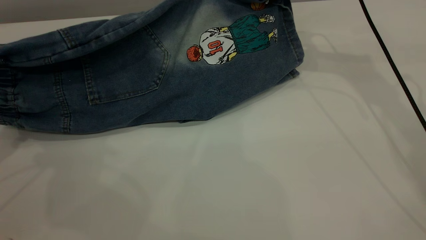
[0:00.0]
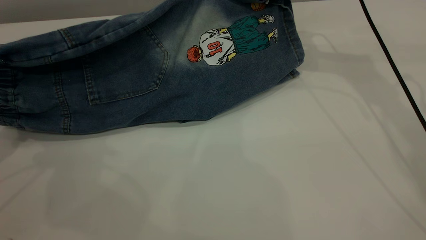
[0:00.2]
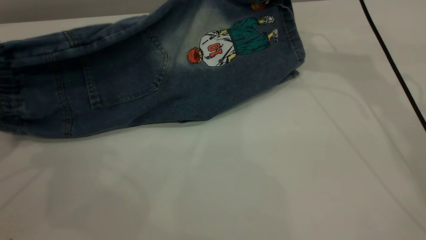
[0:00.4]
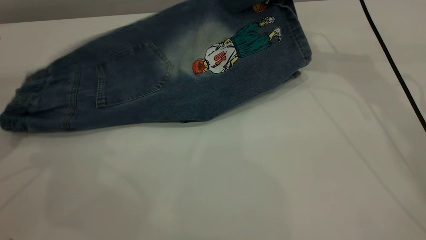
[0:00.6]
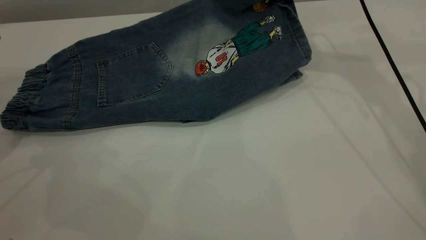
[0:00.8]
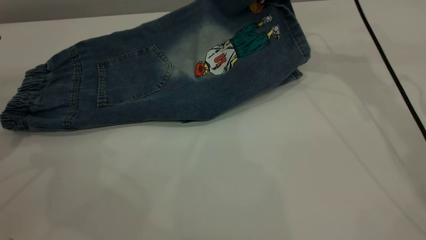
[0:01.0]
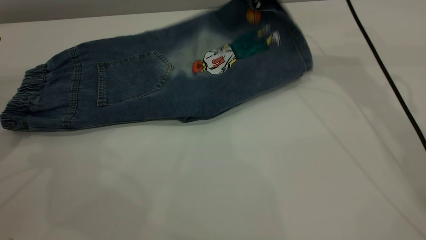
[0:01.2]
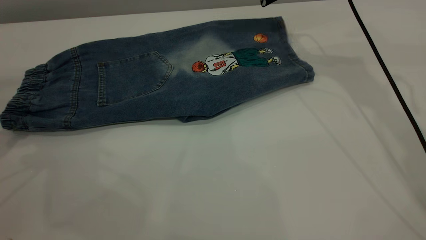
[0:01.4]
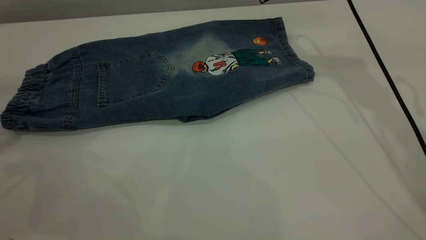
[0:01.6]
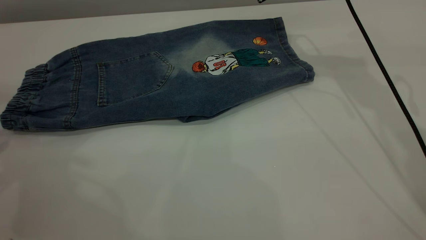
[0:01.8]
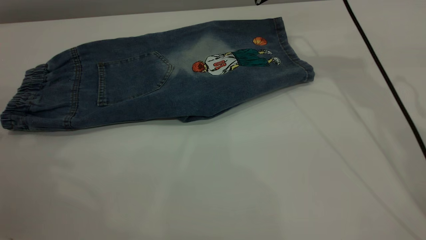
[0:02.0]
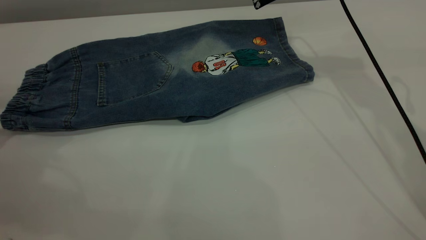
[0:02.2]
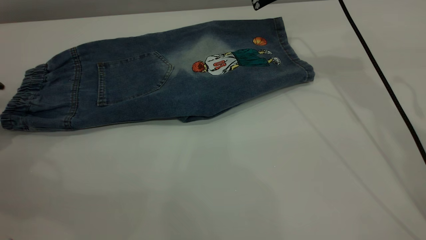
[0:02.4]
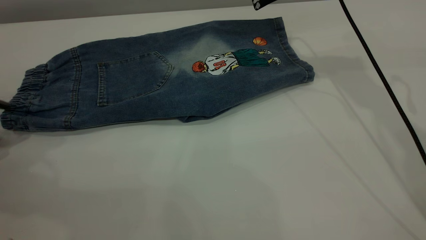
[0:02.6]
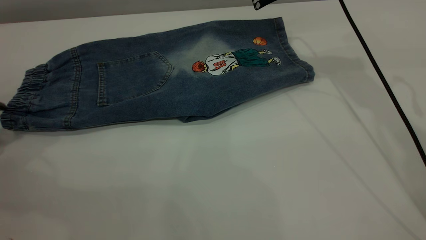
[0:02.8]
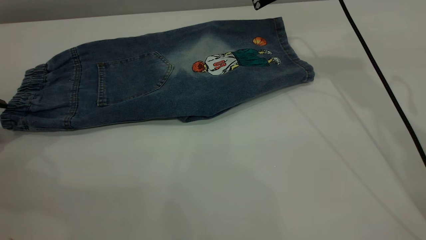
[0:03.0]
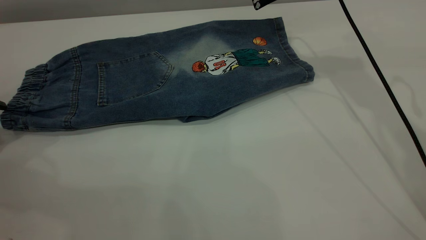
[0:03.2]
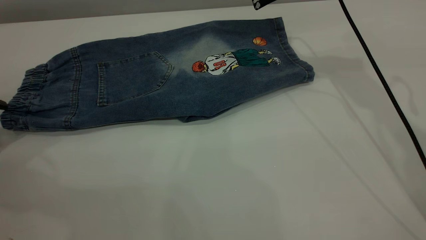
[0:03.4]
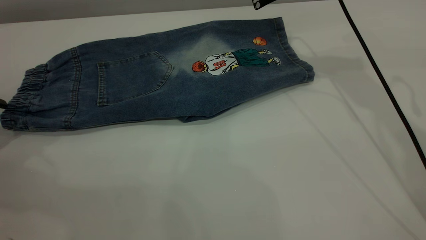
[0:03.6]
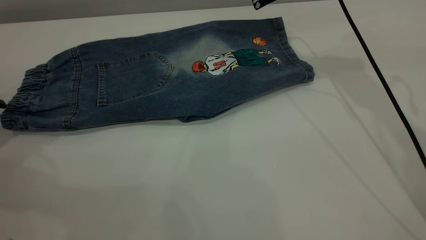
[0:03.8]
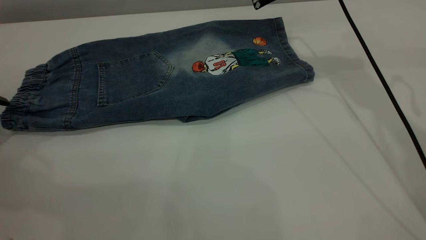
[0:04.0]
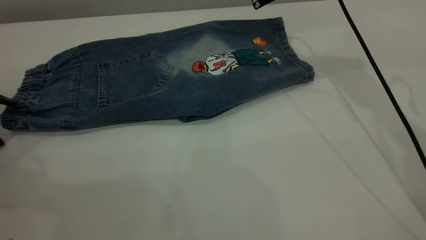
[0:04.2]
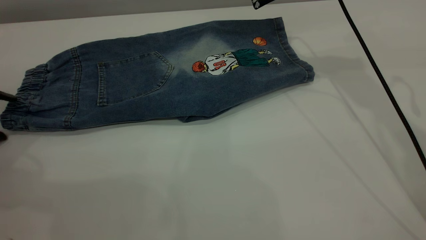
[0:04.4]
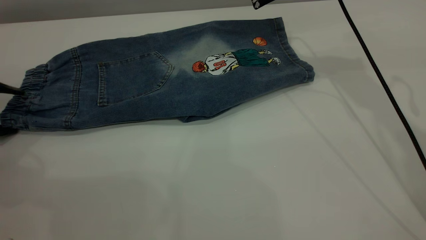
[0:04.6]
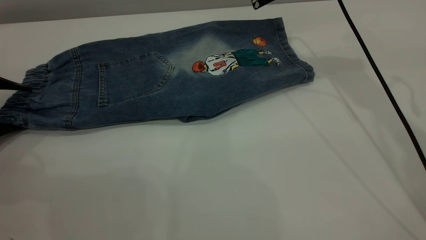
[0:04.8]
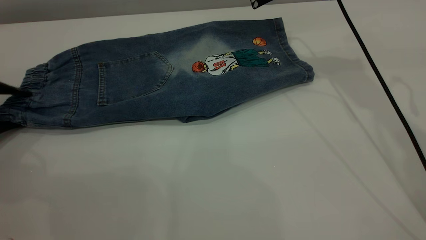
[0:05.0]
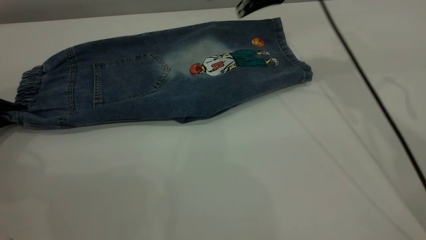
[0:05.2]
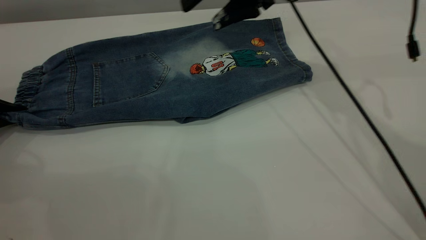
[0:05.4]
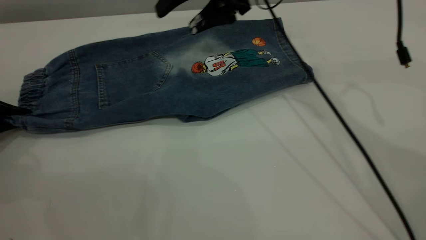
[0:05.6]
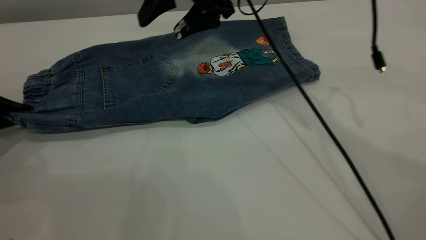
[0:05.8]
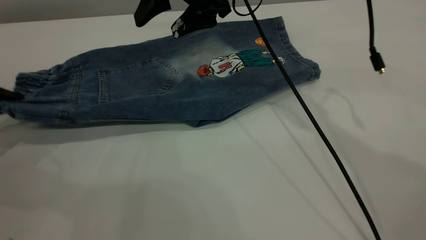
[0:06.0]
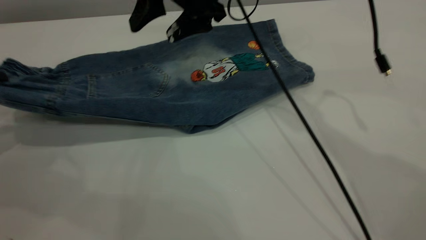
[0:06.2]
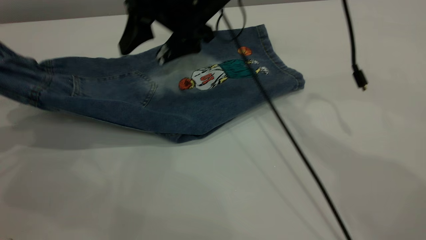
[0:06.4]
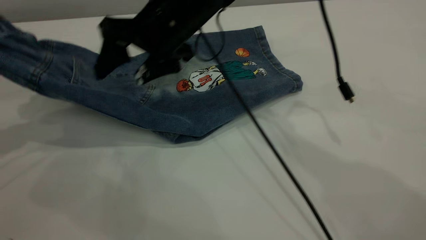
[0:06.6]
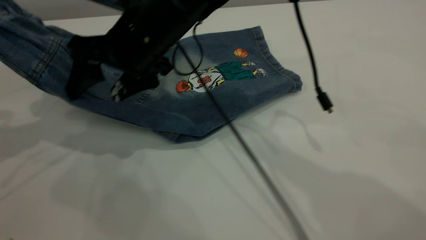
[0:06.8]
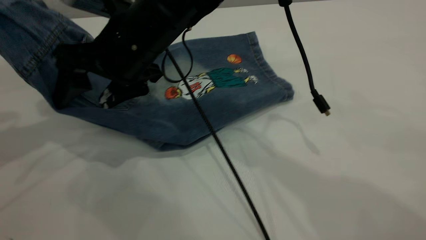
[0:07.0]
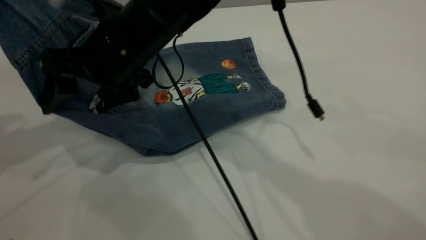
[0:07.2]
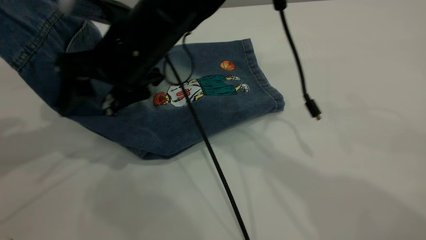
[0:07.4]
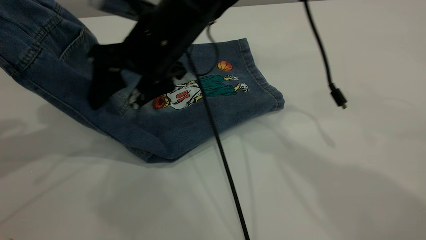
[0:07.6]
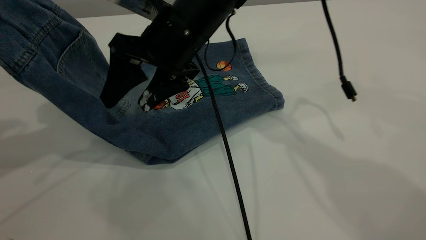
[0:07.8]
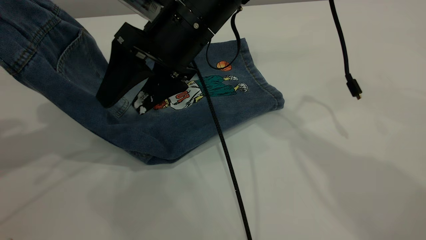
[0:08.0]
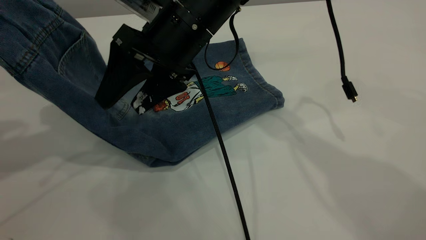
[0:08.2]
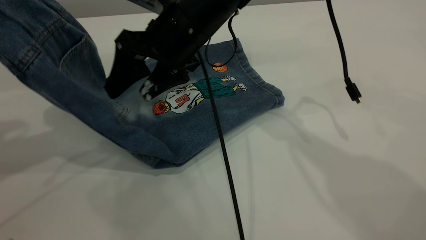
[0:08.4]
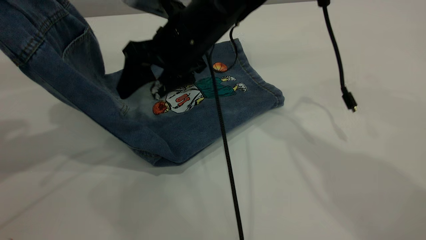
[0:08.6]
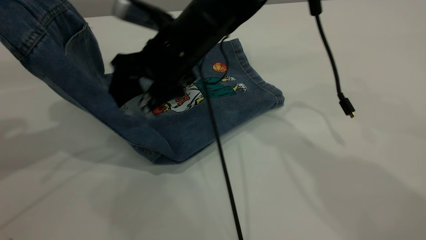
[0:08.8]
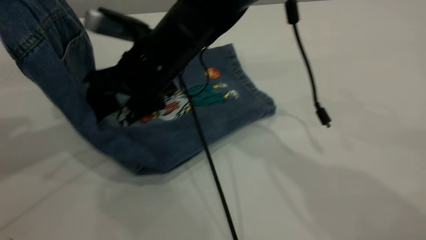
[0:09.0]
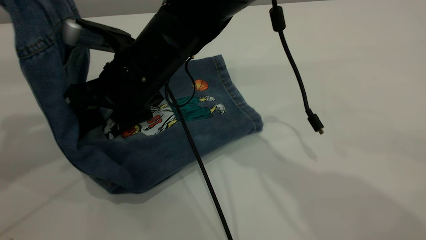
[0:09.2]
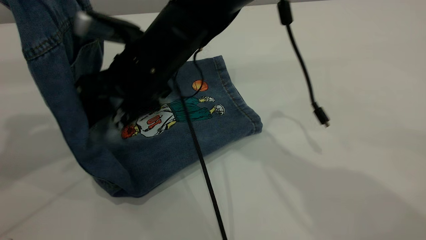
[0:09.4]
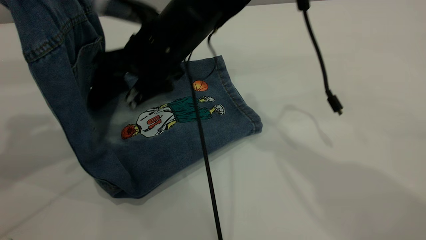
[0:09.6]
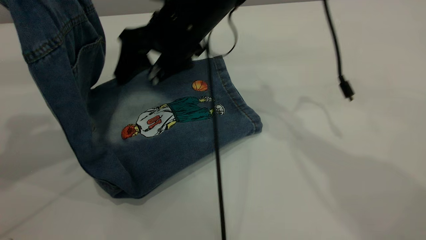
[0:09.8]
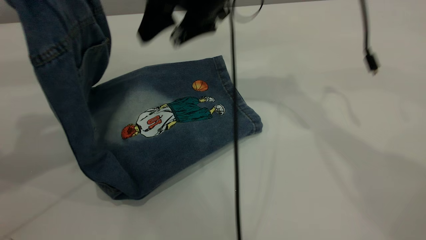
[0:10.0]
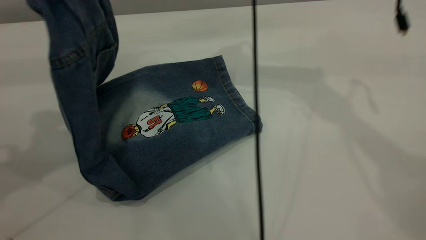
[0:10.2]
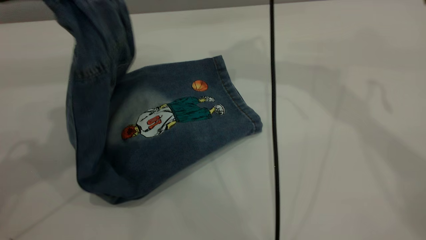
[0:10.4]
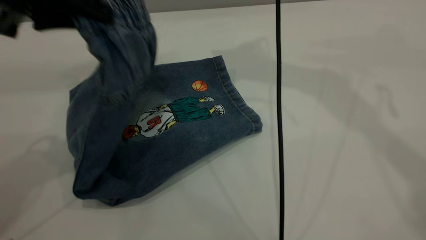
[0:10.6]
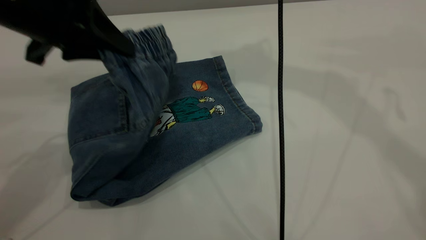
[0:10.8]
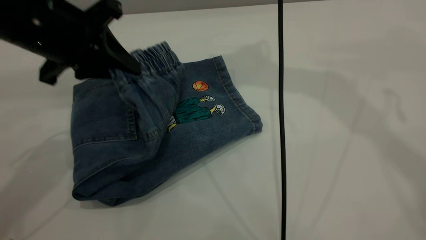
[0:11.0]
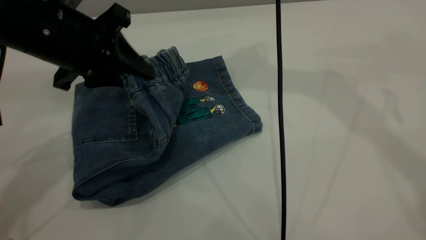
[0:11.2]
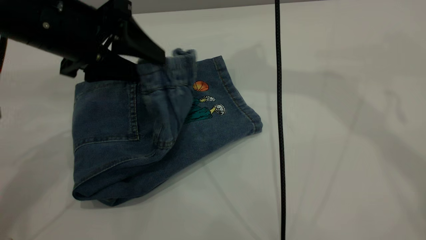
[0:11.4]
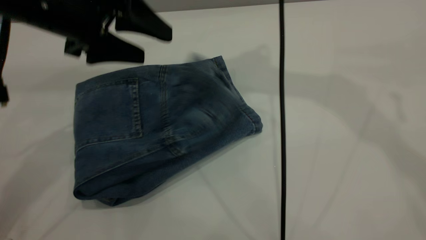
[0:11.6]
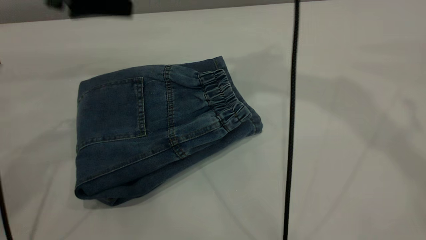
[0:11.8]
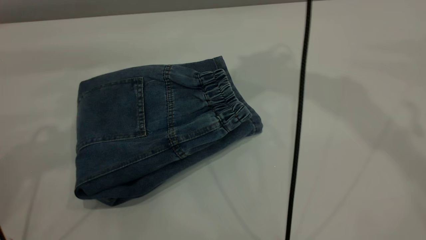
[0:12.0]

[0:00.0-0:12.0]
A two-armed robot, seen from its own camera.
Step, 0:01.8 to 0:11.8: Fold the pants from left to right.
0:00.0 to 0:01.6: The right gripper opens up; the left gripper opens.
0:03.0 to 0:04.4: The grippers make only small movements.
0:04.4 to 0:06.0: The right gripper moves to the left, approximately 10 cm. Meanwhile the left gripper closes up.
0:06.0 to 0:07.6: The left gripper heads upward, covering about 15 cm. Meanwhile the right gripper shifts roughly 10 cm backward and to the left.
0:07.6 to 0:09.0: The grippers stay close to where they were, moving slightly.
0:09.0 to 0:10.4: The right gripper goes approximately 25 cm upward, to the right and forward. The left gripper is displaced to the right by some 10 cm.
0:10.4 to 0:12.0: The right gripper travels upward by approximately 10 cm; the left gripper goes downward and returns, approximately 10 cm each way, and opens.

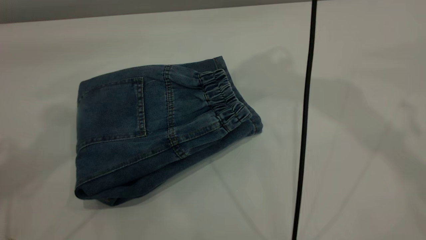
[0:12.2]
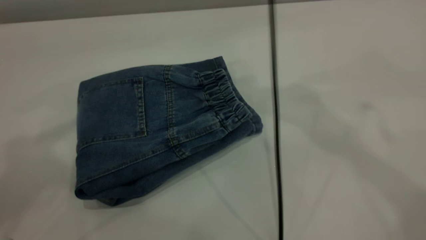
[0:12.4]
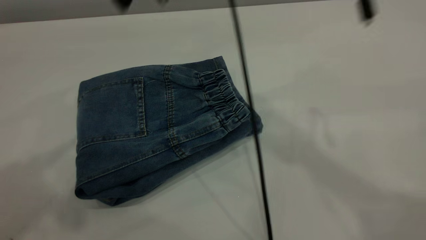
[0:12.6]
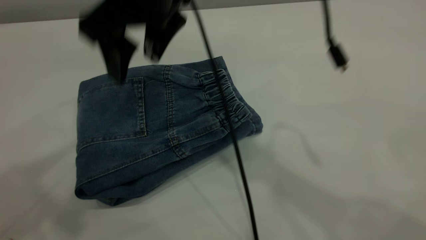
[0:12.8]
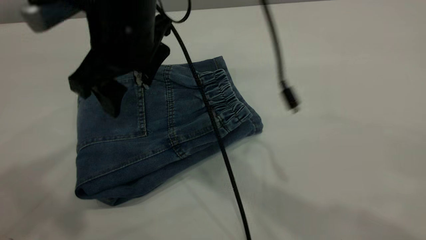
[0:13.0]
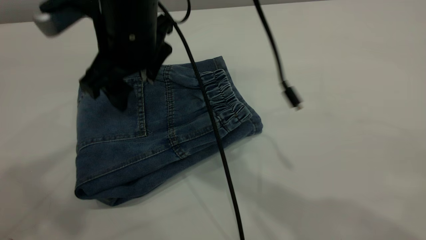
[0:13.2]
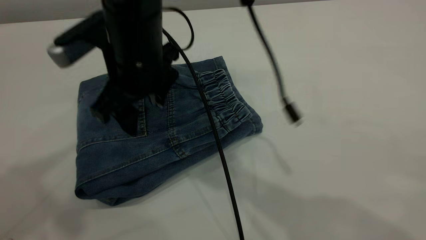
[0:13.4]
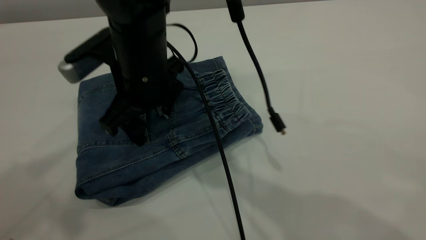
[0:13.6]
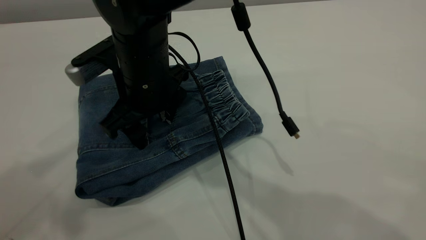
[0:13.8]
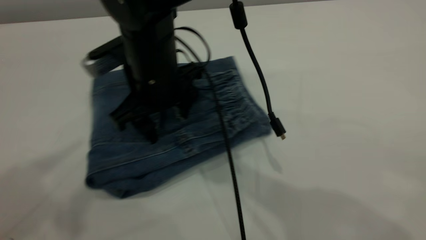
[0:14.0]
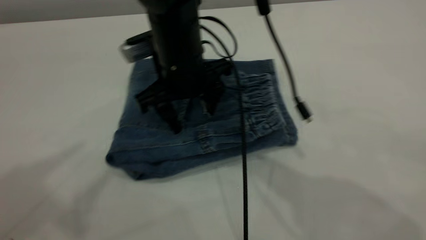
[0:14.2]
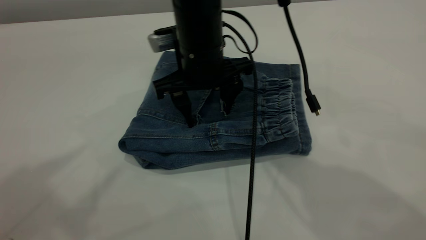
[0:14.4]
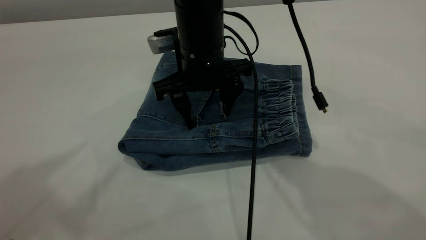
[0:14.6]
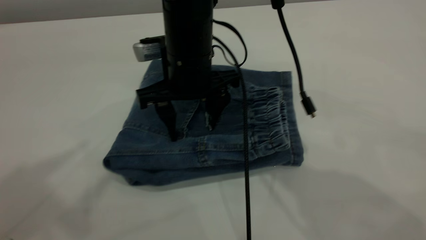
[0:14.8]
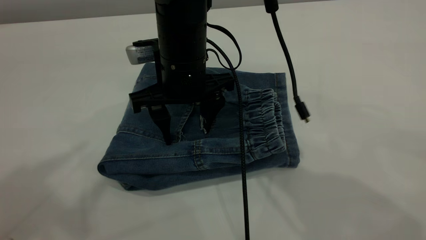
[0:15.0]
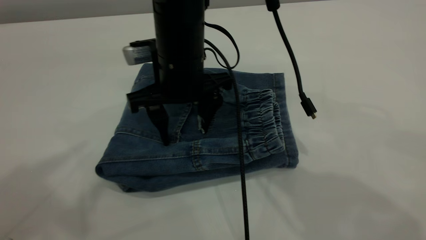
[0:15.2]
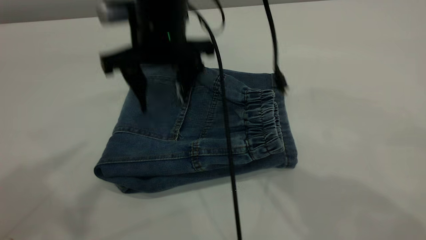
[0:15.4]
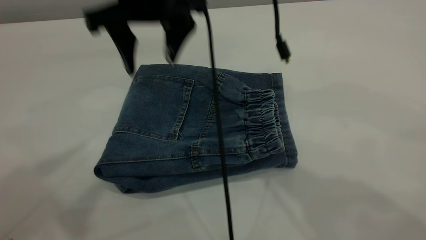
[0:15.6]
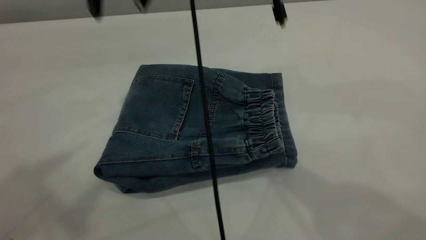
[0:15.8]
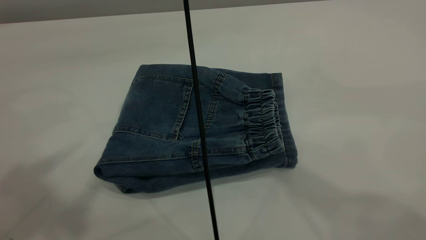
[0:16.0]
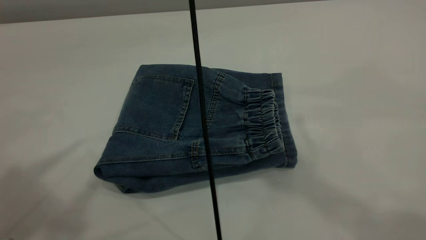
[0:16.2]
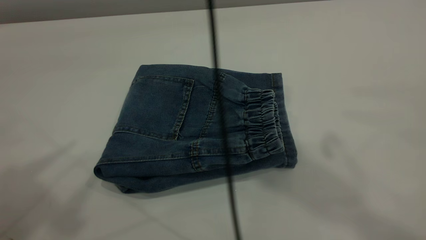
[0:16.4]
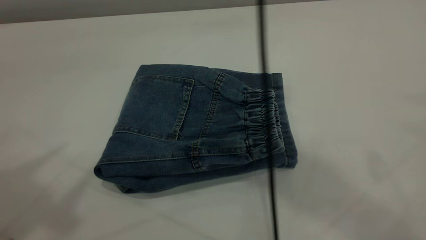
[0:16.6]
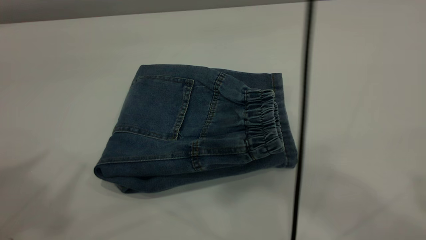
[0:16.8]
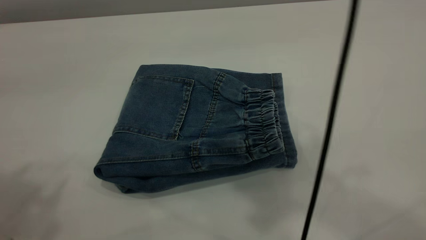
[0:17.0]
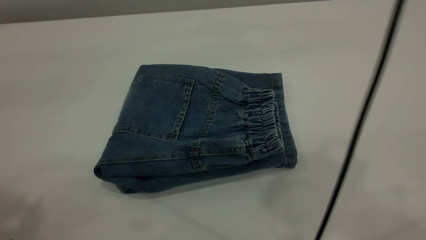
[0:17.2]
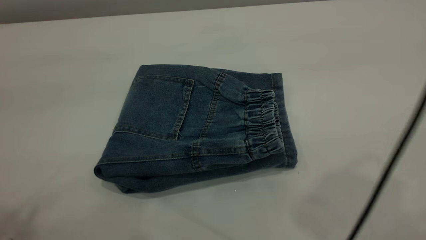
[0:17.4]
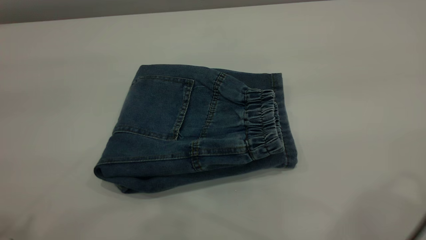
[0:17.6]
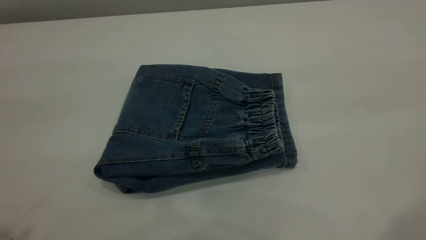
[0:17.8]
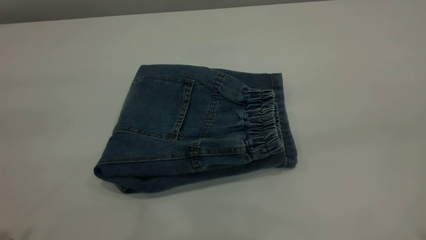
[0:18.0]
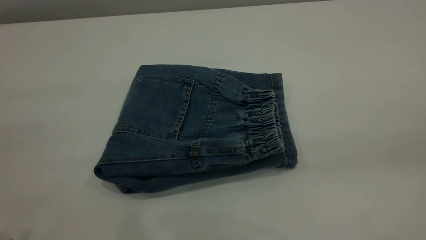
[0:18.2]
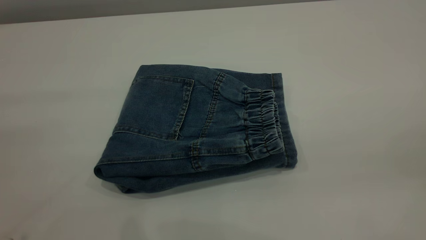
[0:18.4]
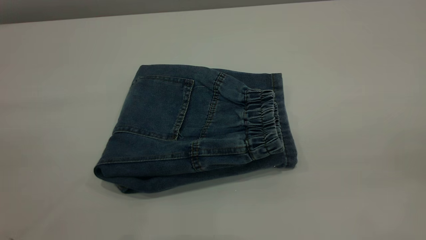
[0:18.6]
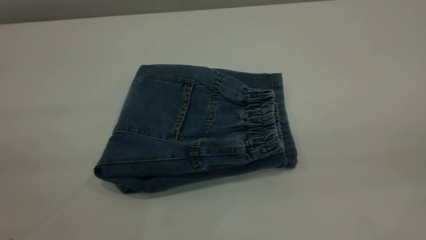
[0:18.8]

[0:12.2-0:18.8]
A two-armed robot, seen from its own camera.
0:12.2 to 0:13.8: The left gripper shifts some 10 cm backward and upward, while the right gripper travels downward and to the left by some 30 cm.
0:13.8 to 0:15.4: The right gripper goes roughly 5 cm upward.
0:15.4 to 0:17.2: The left gripper goes approximately 5 cm downward; the right gripper moves upward, to the right and backward, about 40 cm.
0:17.2 to 0:18.8: The right gripper heads downward, to the right and backward, covering roughly 25 cm.
